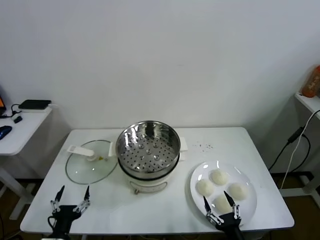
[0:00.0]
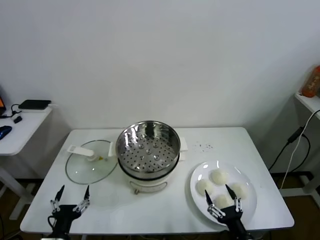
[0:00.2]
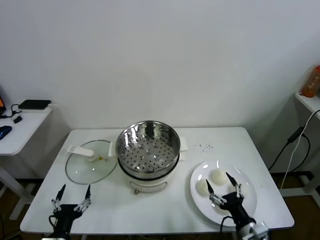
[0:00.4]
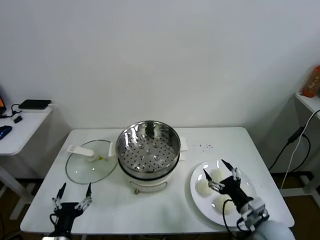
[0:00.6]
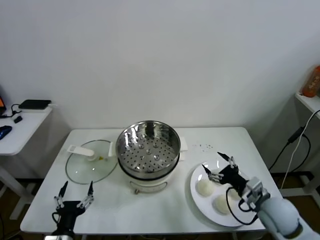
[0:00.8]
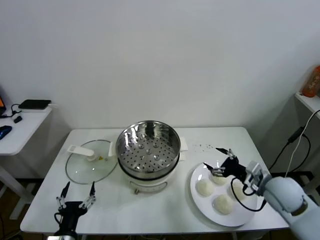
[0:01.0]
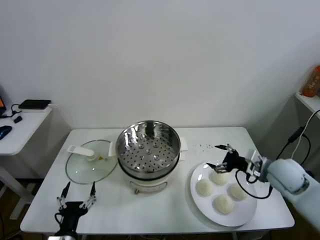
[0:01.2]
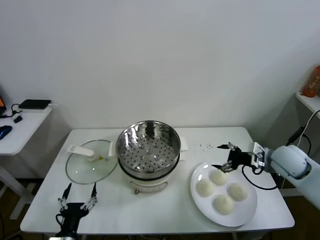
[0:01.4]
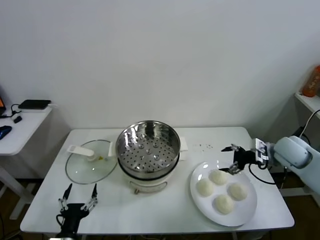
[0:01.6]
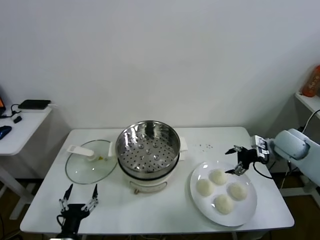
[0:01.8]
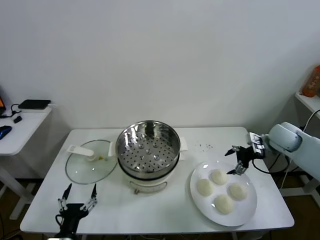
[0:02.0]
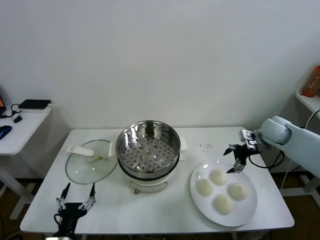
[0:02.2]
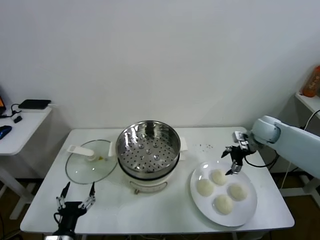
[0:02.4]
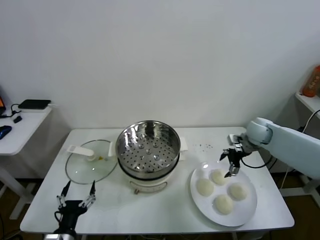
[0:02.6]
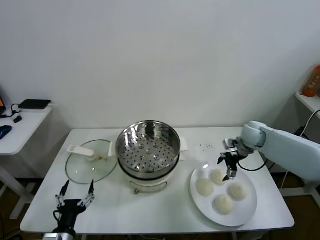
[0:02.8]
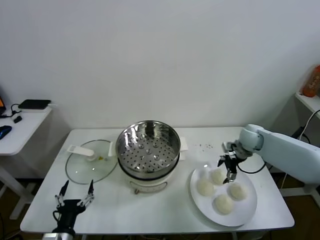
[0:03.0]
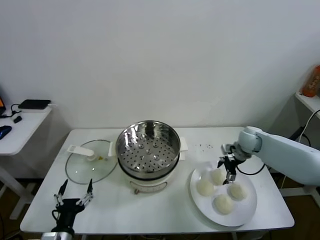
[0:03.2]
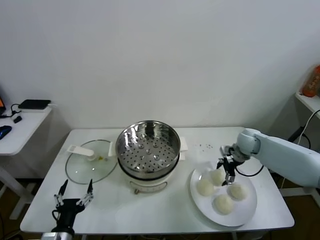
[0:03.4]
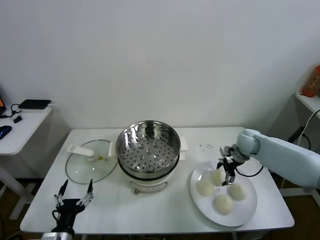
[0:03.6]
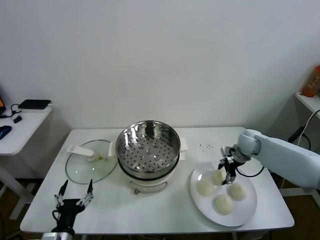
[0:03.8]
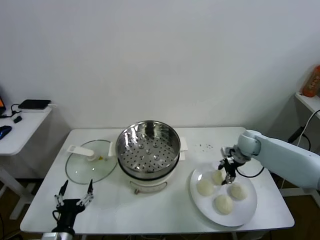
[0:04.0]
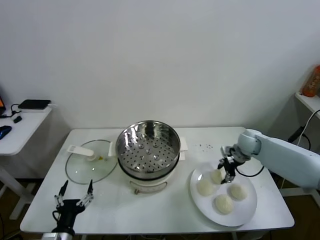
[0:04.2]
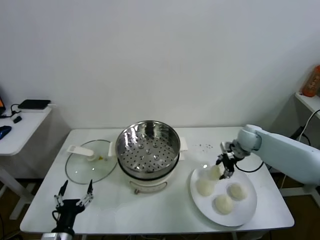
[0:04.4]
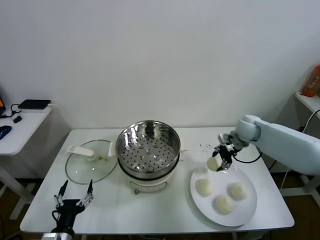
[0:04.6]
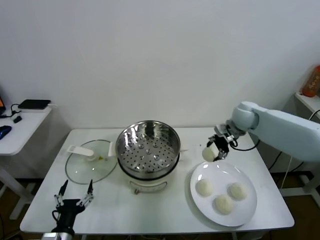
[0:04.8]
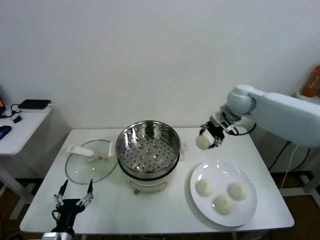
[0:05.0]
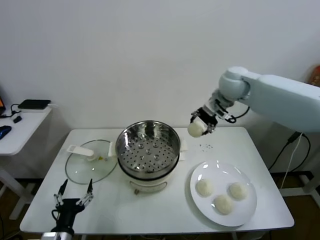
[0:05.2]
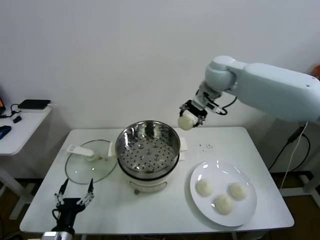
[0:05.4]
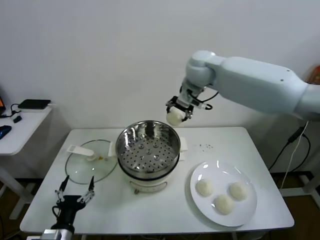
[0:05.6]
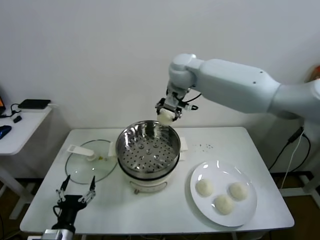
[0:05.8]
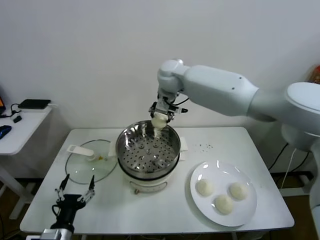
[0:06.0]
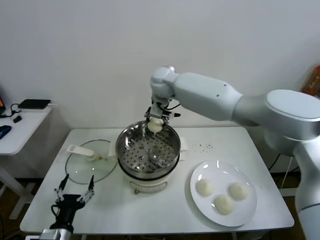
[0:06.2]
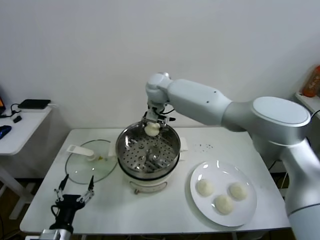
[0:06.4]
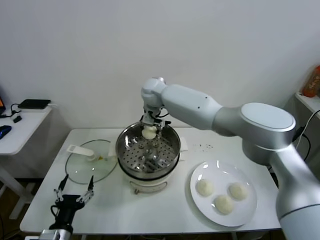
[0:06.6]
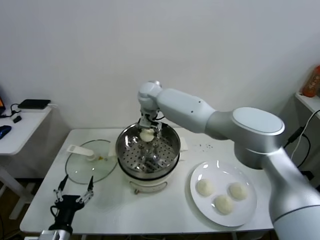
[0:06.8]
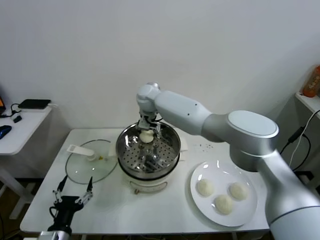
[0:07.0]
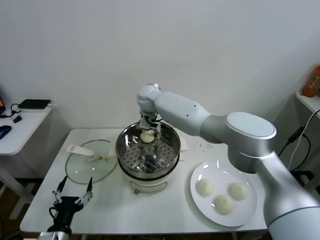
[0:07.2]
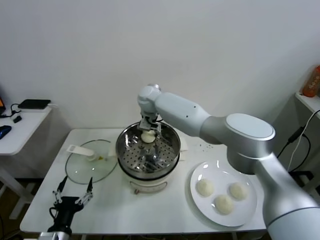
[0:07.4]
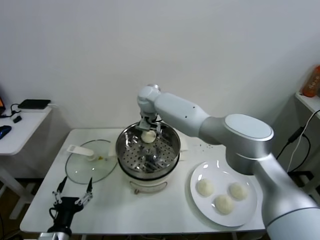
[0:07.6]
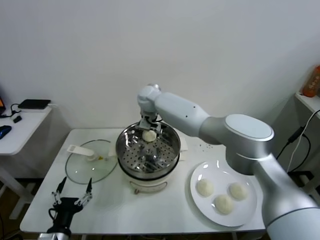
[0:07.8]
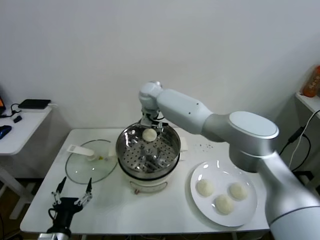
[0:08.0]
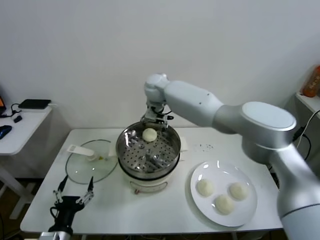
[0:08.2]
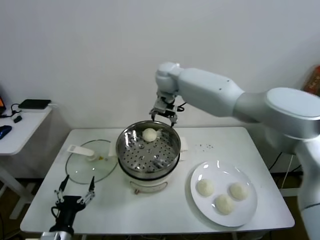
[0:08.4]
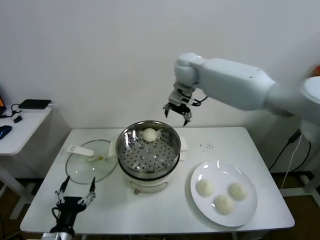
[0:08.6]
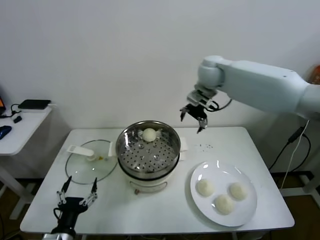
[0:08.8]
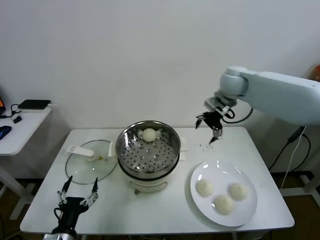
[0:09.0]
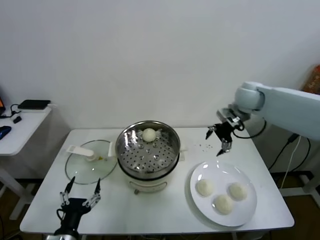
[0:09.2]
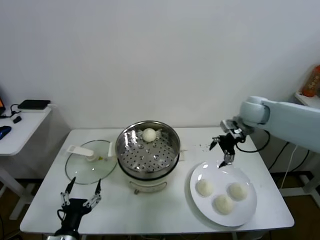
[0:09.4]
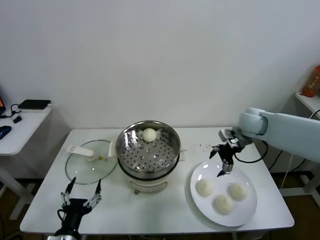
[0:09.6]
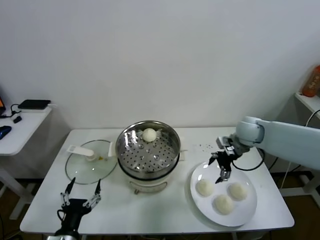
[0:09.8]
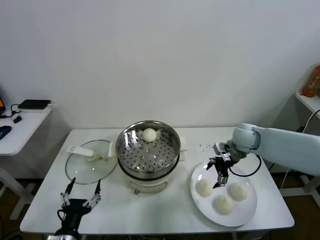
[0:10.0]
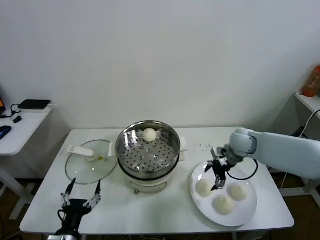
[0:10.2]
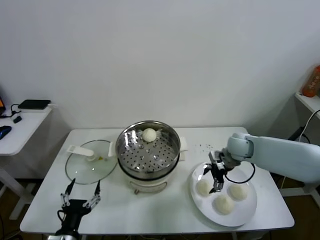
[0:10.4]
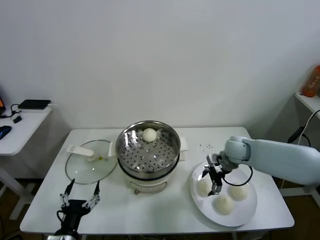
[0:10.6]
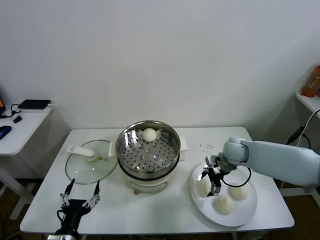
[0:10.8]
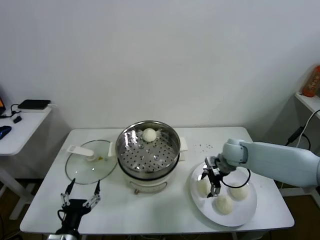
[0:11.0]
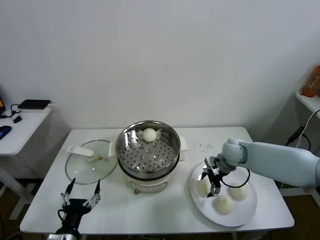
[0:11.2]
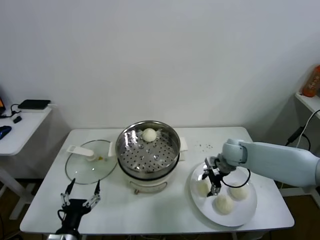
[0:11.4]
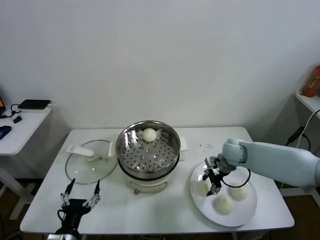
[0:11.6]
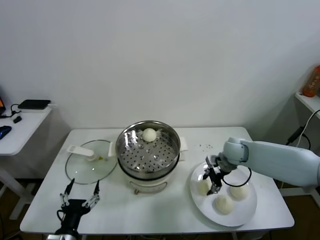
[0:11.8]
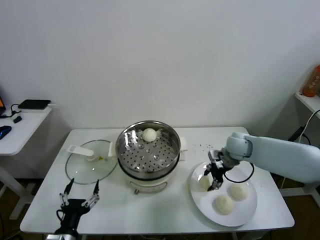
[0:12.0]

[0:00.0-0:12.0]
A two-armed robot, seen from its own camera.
Task of the whole recording: take steamed baozi put them in steamer.
Step, 0:00.0 to 0:04.0: Grasp the baozi in the plate with right gripper.
Step, 0:04.2 to 0:07.8: Place the baozi on the steamer with right gripper.
Step, 0:08.0 to 0:11.6: Grasp the baozi in the plate with right gripper.
0:01.6 to 0:03.0: The right gripper shifts roughly 15 cm forward, to the left and downward.
0:03.0 to 0:04.4: The right gripper closes up.
0:04.4 to 0:06.0: The right gripper shifts about 40 cm to the left and upward.
0:06.0 to 0:07.6: The right gripper shifts roughly 10 cm downward and to the left, and opens.
0:07.6 to 0:09.0: The right gripper travels to the right by roughly 30 cm.
0:09.0 to 0:10.4: The right gripper goes about 20 cm downward.
0:10.4 to 0:12.0: The right gripper closes up.

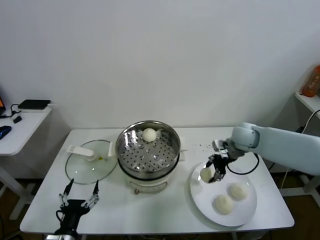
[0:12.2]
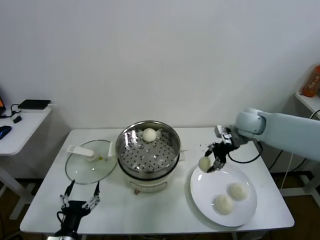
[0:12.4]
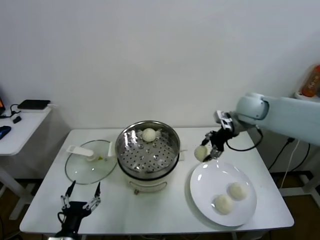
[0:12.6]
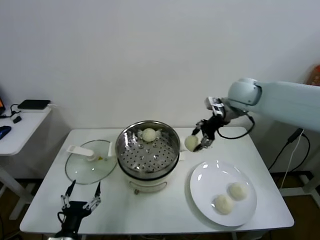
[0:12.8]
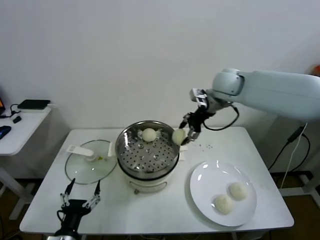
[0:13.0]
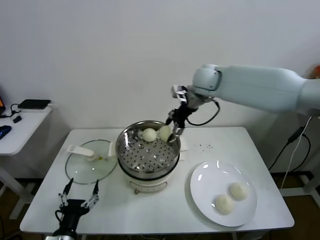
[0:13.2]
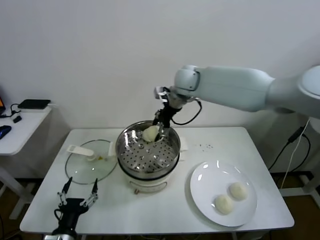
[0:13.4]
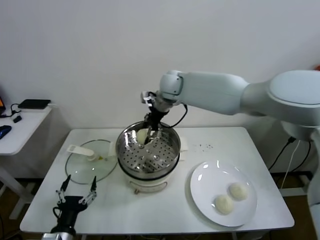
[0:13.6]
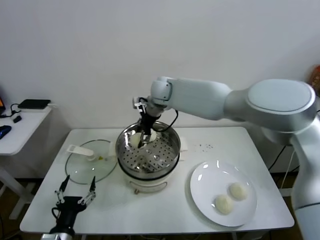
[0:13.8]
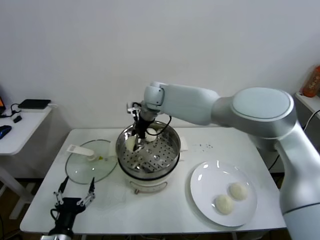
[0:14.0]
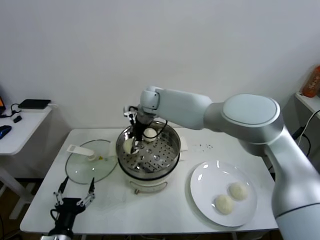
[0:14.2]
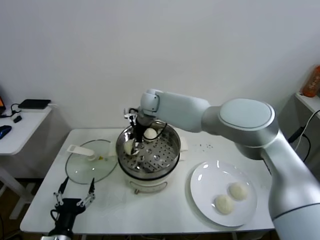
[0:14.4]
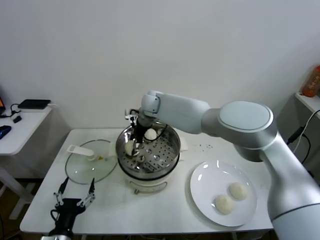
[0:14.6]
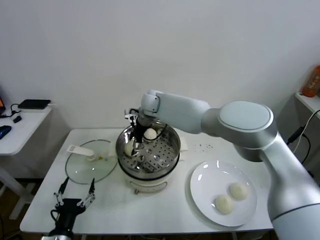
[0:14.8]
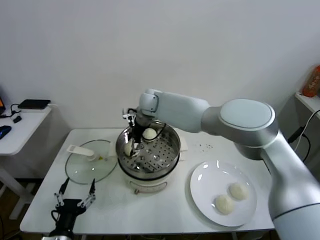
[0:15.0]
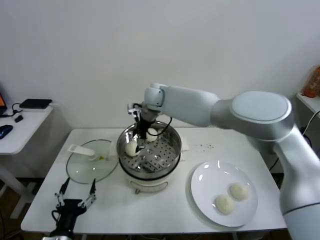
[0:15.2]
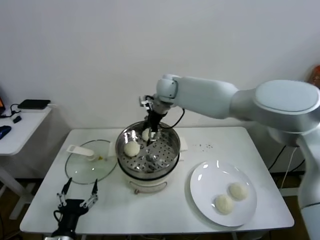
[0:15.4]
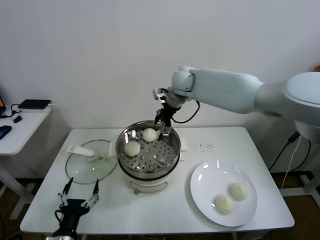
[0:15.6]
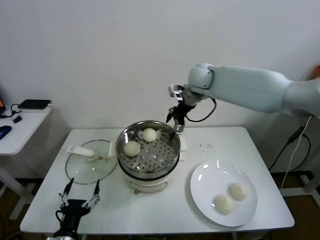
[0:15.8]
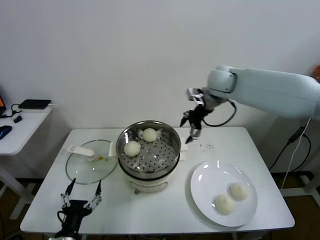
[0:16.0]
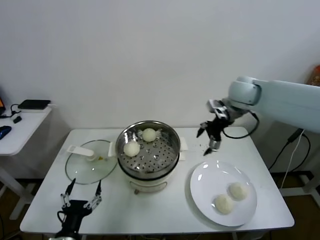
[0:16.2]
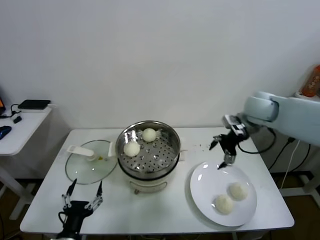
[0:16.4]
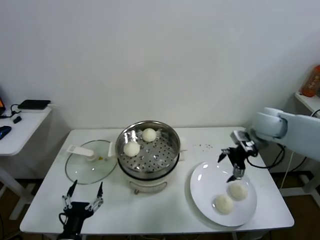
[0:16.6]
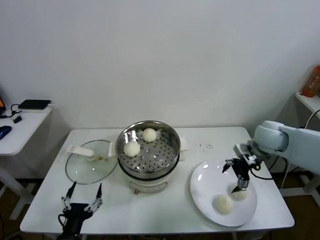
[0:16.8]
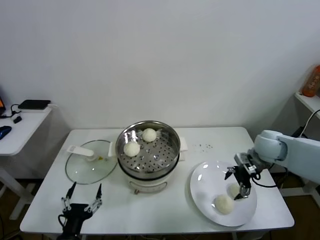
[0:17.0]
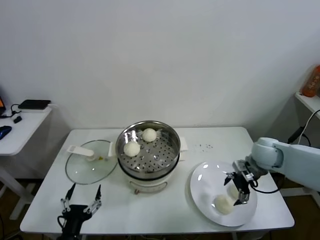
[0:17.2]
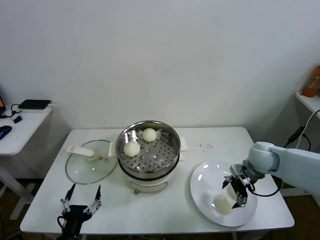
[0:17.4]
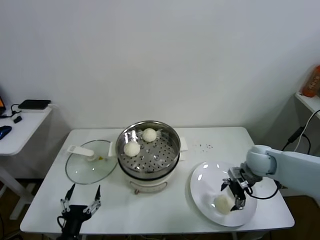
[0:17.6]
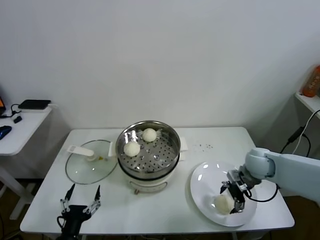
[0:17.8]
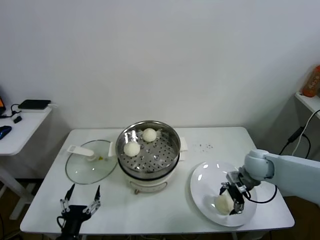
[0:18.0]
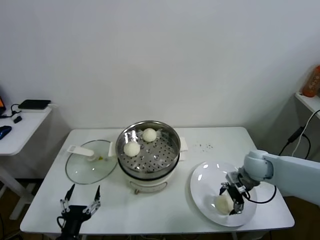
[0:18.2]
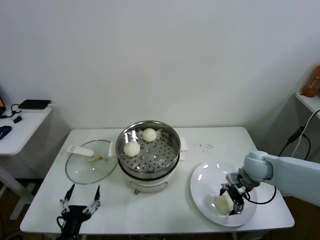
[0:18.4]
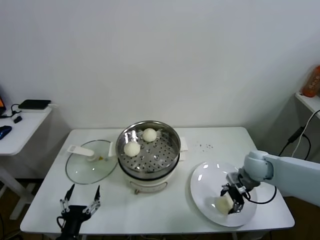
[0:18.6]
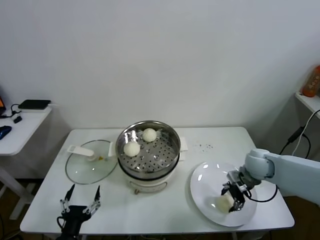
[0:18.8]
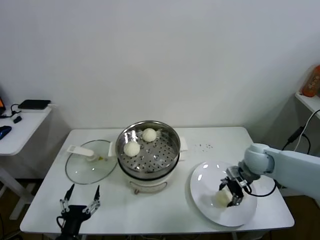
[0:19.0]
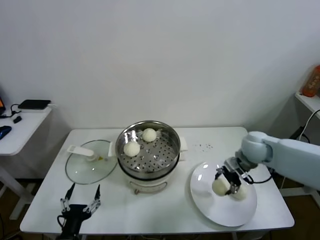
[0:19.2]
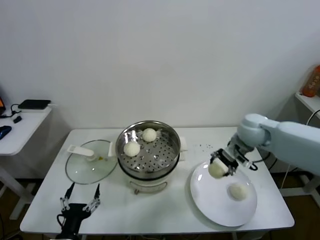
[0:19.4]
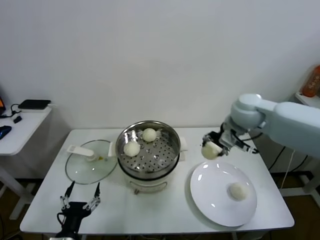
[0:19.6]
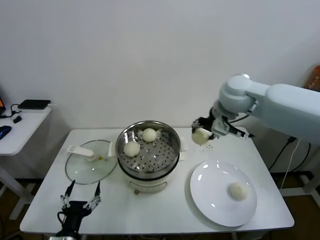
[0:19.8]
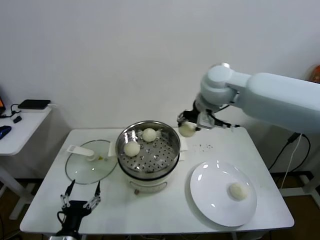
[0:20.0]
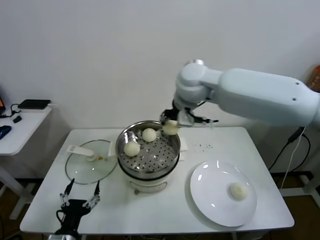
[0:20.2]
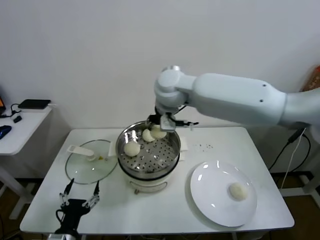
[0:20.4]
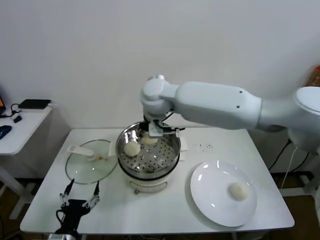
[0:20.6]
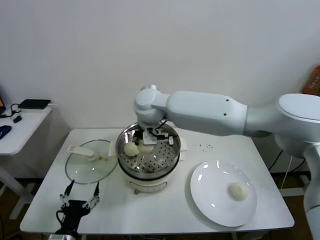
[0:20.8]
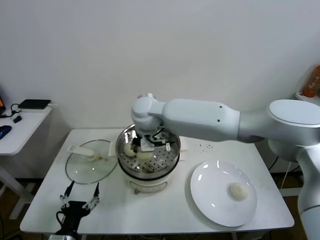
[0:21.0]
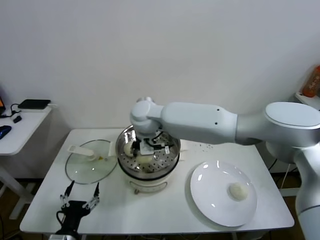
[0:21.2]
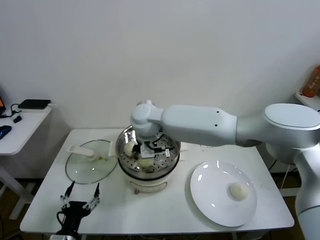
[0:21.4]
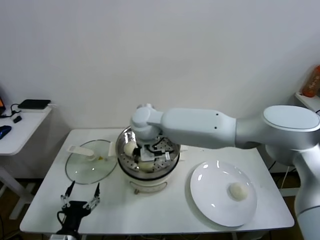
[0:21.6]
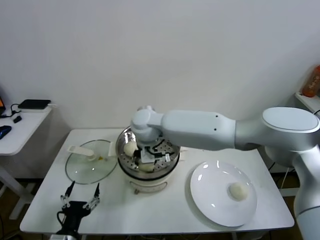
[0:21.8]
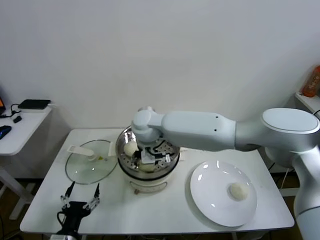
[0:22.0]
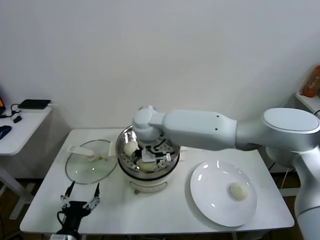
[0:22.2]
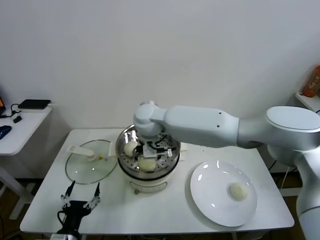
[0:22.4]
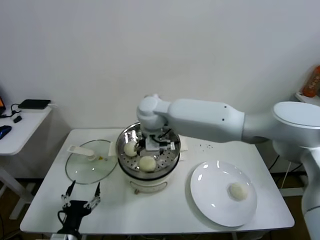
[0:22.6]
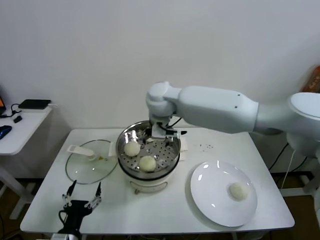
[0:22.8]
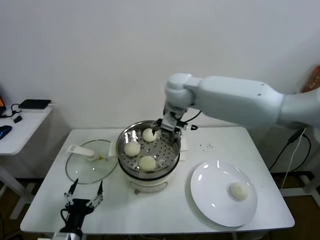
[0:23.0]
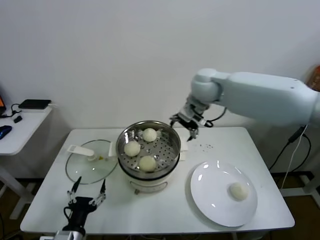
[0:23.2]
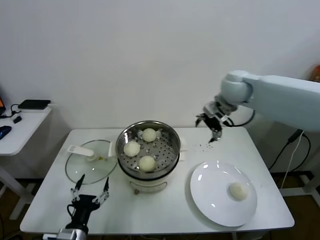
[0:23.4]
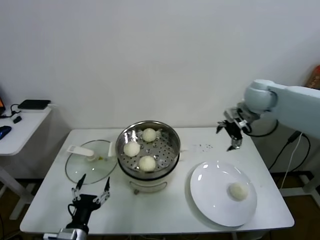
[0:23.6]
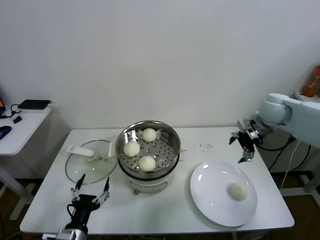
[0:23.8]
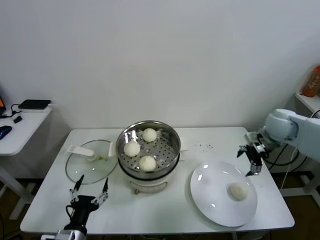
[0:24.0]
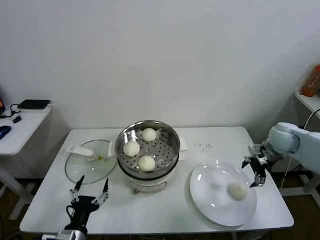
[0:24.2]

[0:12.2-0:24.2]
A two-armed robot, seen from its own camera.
Task of the whole recording: take steamed baozi put them in steamer.
Step, 0:12.2 to 0:14.8: Place the baozi on the steamer with right gripper.
Step, 0:15.2 to 0:18.6: Grasp the baozi in the plate with right gripper.
Step, 0:19.0 to 0:22.0: Place the baozi on the steamer with right gripper.
0:12.2 to 0:13.8: The right gripper moves to the left, some 30 cm.
0:13.8 to 0:15.2: The right gripper opens.
0:15.2 to 0:16.6: The right gripper travels to the right by approximately 35 cm.
0:16.6 to 0:18.2: The right gripper shifts some 15 cm downward.
0:18.2 to 0:19.8: The right gripper goes approximately 30 cm upward and to the left, and closes.
0:19.8 to 0:21.2: The right gripper goes about 25 cm to the left.
0:21.2 to 0:22.6: The right gripper opens.
0:22.6 to 0:24.2: The right gripper goes approximately 40 cm to the right.
